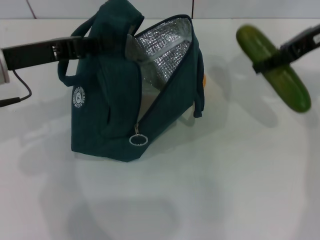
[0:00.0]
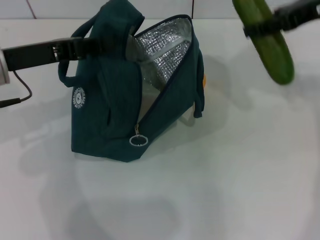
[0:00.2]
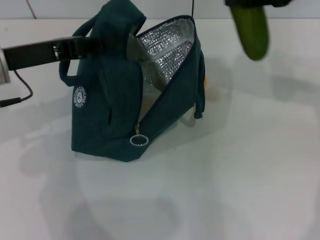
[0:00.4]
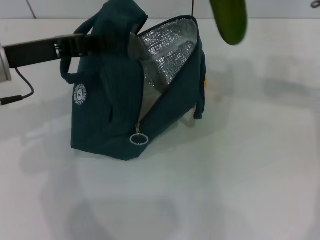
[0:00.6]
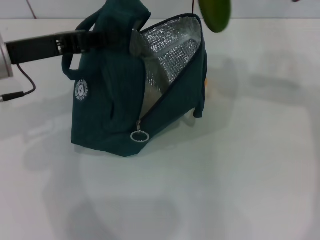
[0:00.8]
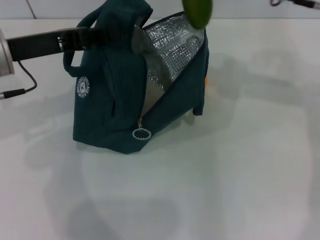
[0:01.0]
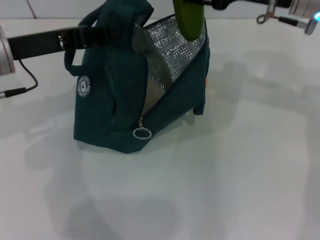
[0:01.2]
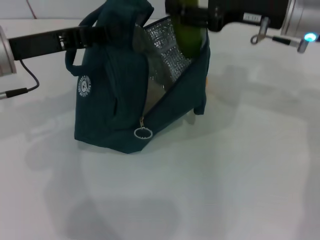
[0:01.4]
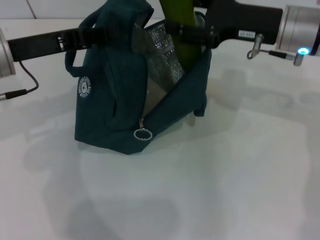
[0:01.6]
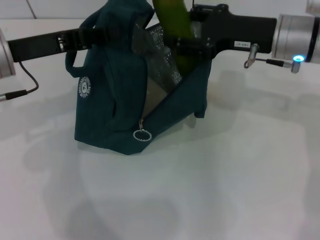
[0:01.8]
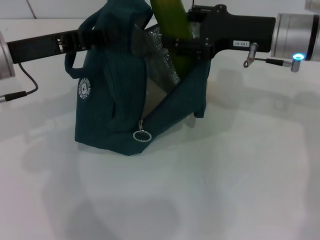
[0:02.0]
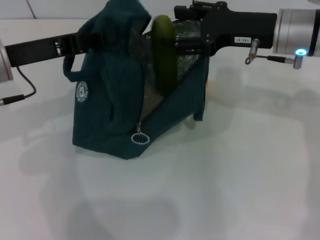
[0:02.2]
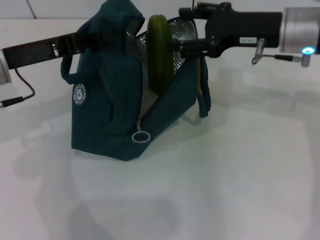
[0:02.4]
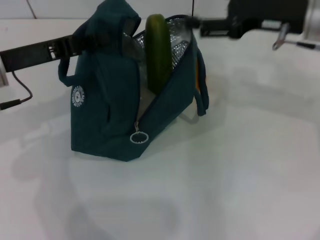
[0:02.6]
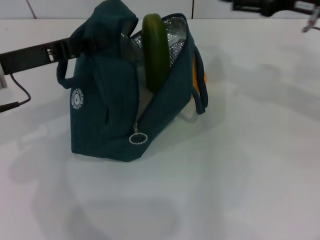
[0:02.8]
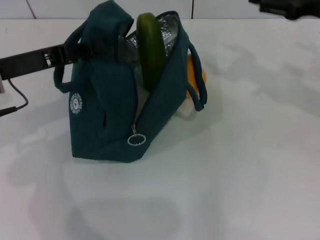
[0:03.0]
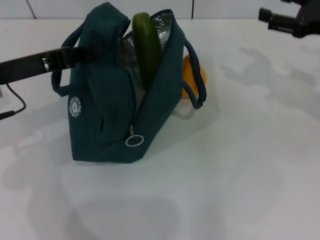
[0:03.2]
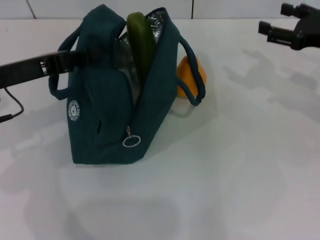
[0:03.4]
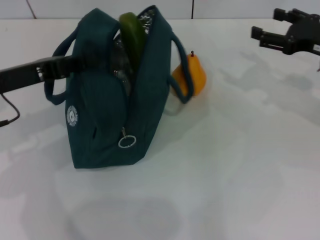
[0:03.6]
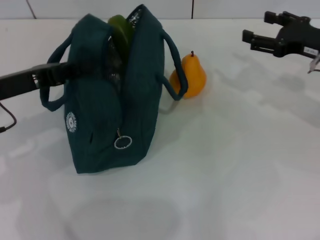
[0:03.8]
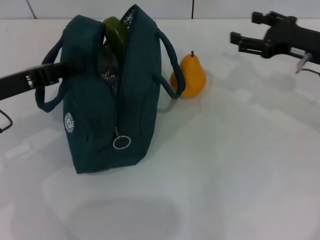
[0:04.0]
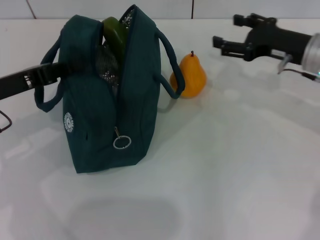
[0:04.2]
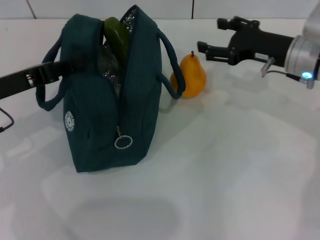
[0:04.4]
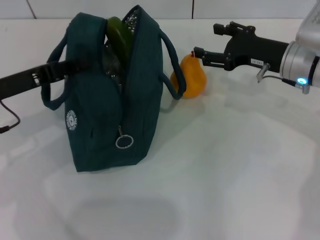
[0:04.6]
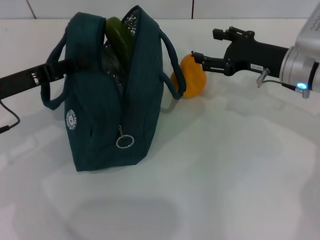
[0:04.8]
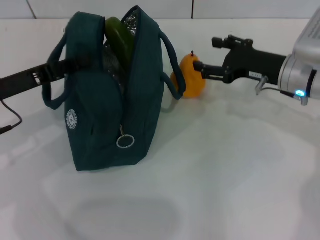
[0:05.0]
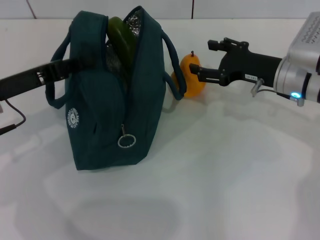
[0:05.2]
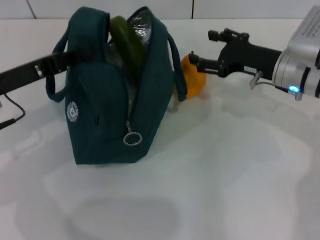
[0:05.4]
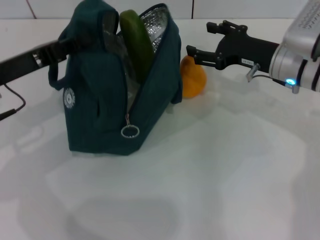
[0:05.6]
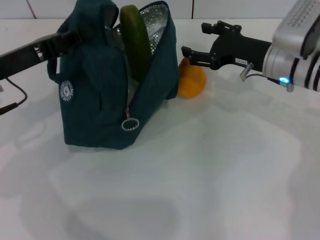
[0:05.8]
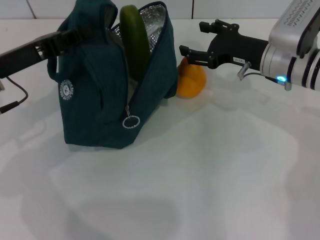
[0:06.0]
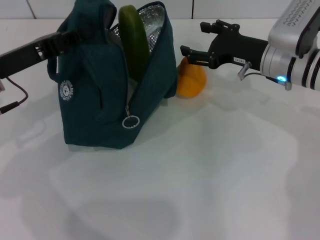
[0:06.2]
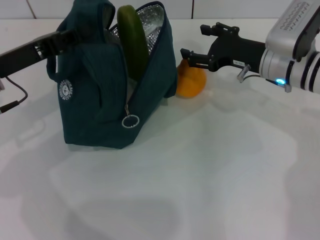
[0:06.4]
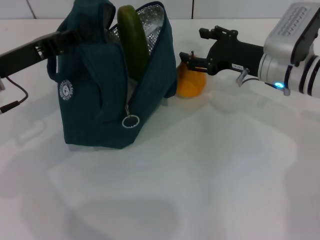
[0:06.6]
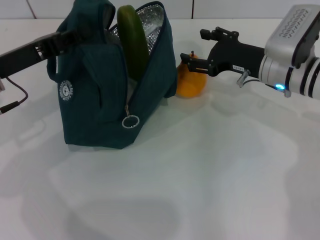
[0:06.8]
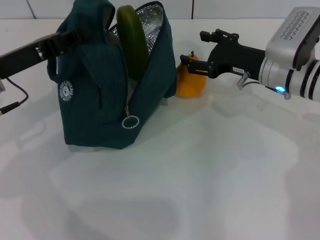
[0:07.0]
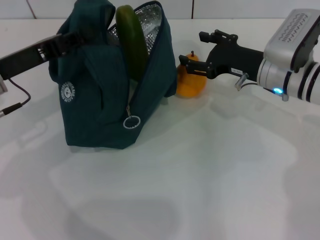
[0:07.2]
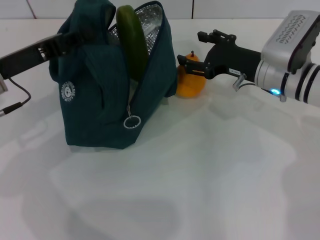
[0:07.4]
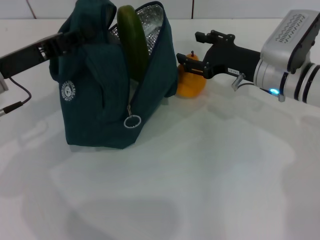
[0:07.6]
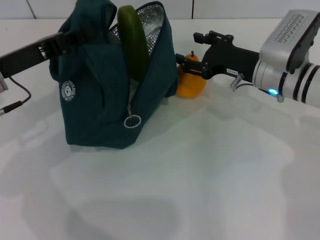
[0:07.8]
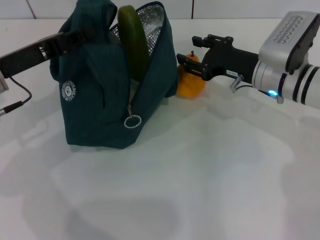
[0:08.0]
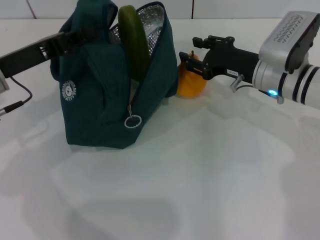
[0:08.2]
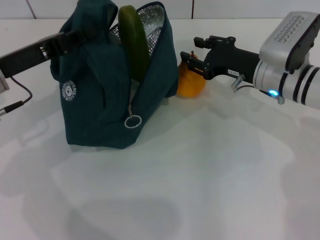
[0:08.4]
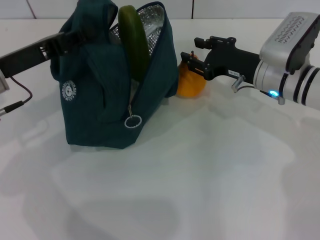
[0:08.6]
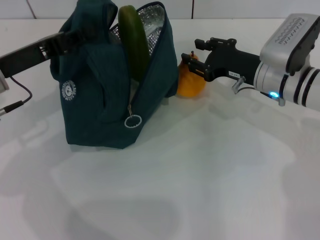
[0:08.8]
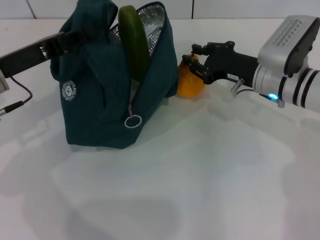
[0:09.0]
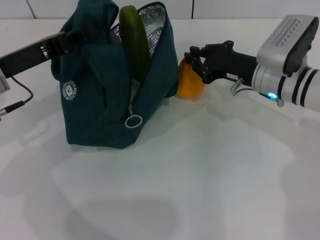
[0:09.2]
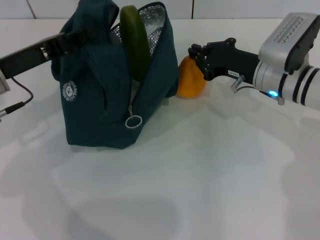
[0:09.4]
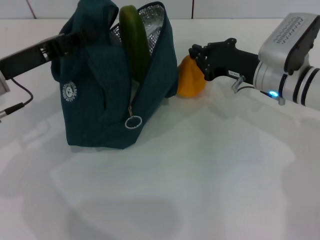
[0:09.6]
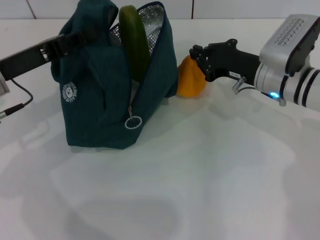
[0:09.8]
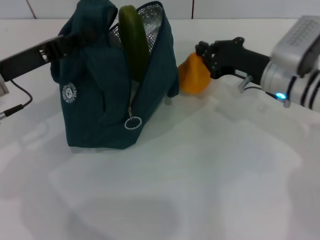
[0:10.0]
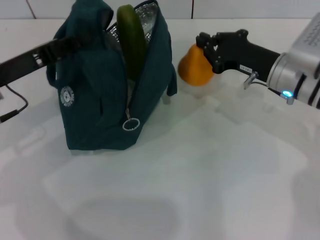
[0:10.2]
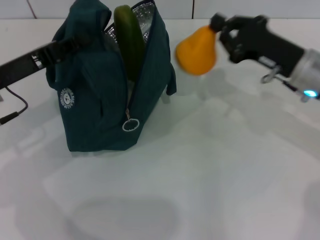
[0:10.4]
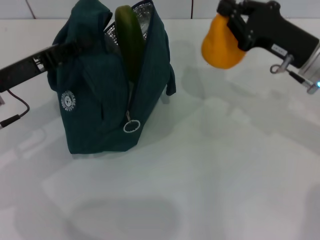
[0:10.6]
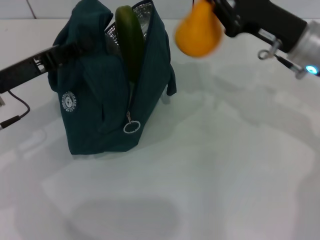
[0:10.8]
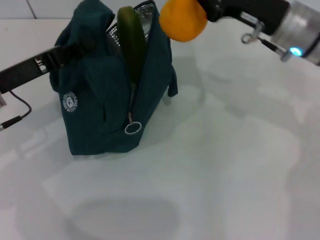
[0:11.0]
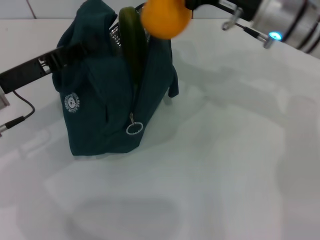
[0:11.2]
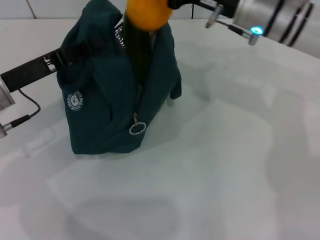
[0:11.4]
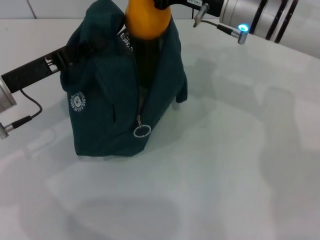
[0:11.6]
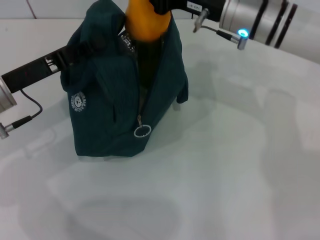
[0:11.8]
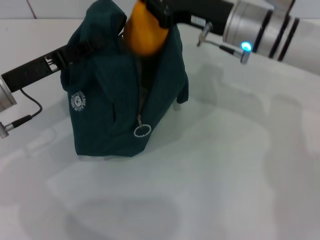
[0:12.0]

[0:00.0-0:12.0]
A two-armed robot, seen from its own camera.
Step, 0:00.0 to 0:02.4: Put the cucumber into the lunch bag with your right hand.
Step, 0:02.8 to 0:09.6: Grab the pear with your right hand.
0:00.0 to 0:01.6: The right gripper travels to the left and downward by some 10 cm.
0:01.6 to 0:03.0: The right gripper goes some 10 cm to the right.
0:03.0 to 0:04.4: The right gripper heads downward and to the left, covering about 10 cm.
0:06.0 to 0:07.6: The grippers move only a little.
0:07.6 to 0:09.0: The right gripper closes its fingers.
0:09.0 to 0:10.4: The right gripper shifts by about 5 cm, and closes its fingers.
0:10.4 to 0:12.0: The right gripper travels to the left and upward by approximately 10 cm.

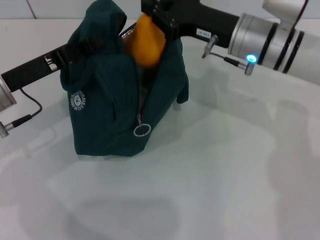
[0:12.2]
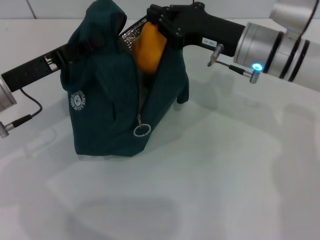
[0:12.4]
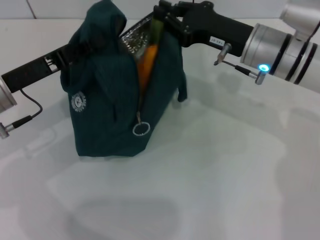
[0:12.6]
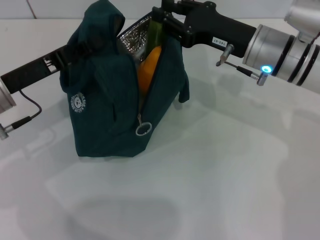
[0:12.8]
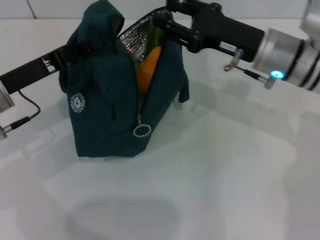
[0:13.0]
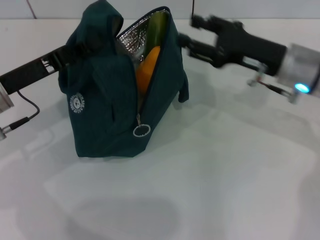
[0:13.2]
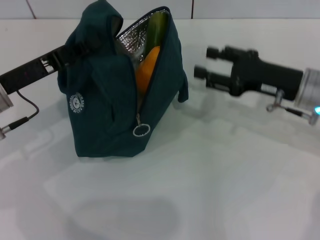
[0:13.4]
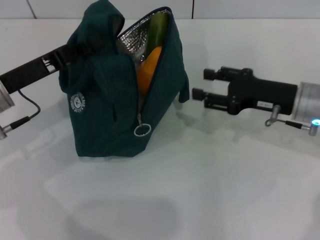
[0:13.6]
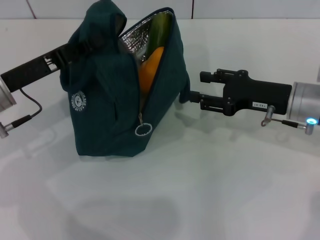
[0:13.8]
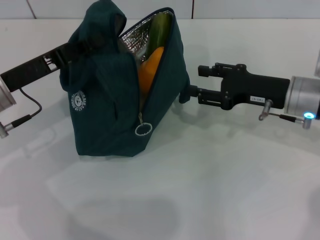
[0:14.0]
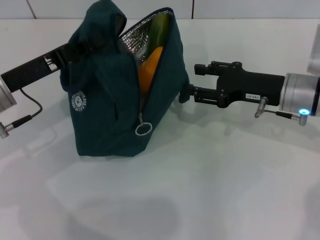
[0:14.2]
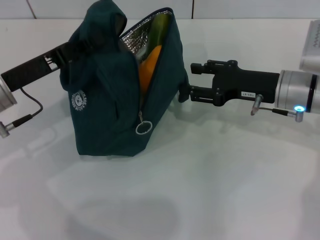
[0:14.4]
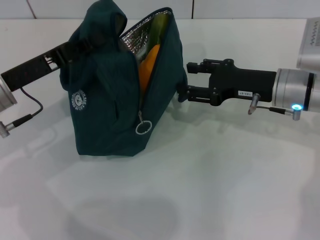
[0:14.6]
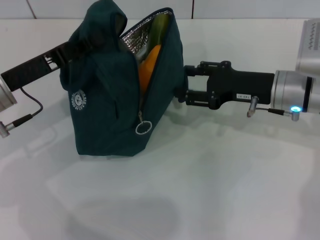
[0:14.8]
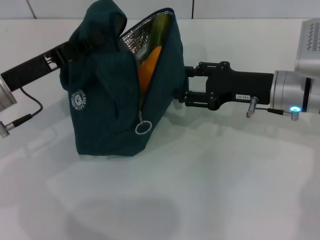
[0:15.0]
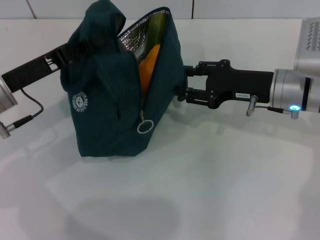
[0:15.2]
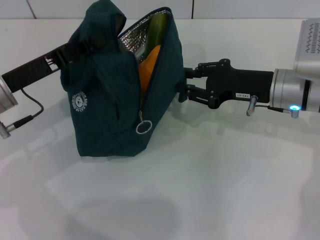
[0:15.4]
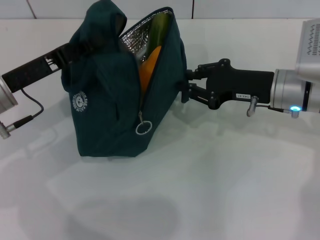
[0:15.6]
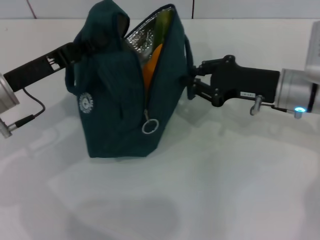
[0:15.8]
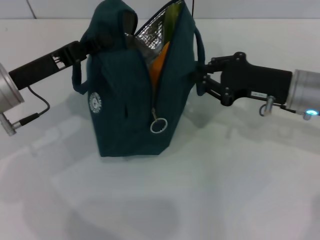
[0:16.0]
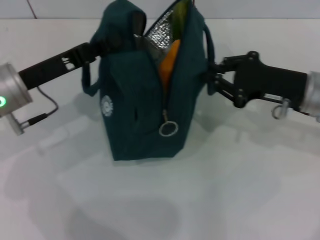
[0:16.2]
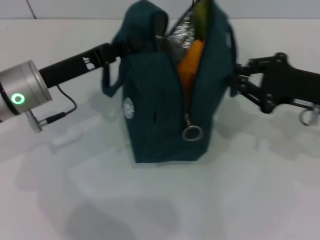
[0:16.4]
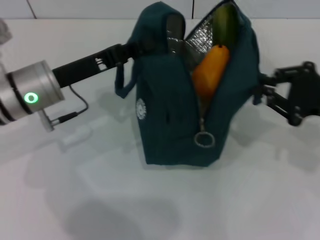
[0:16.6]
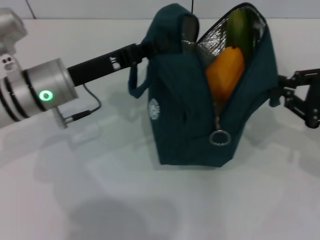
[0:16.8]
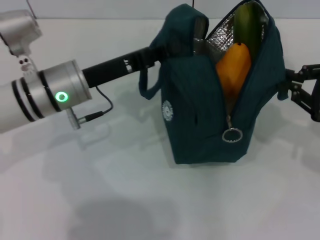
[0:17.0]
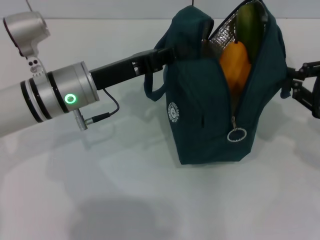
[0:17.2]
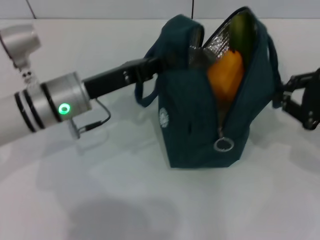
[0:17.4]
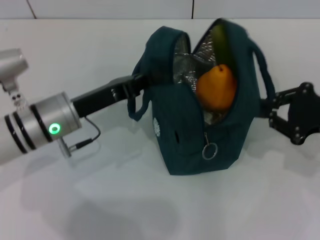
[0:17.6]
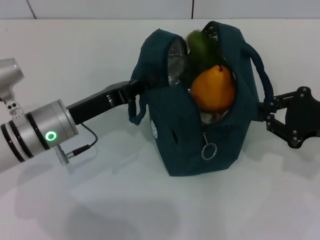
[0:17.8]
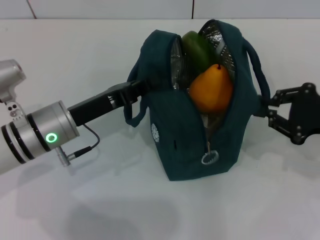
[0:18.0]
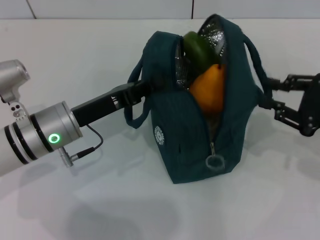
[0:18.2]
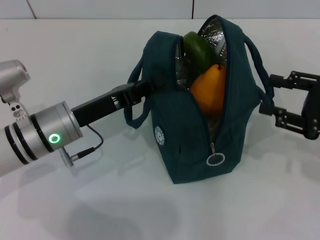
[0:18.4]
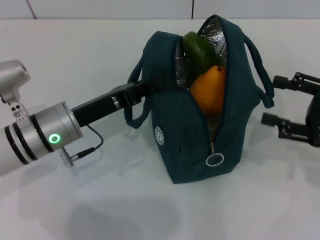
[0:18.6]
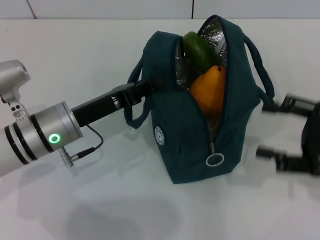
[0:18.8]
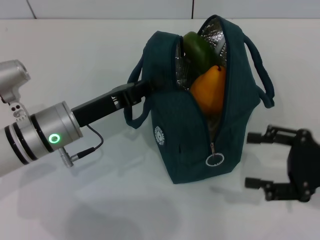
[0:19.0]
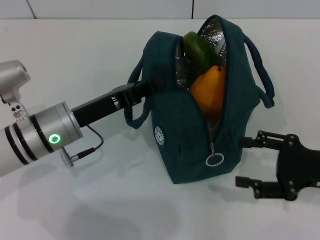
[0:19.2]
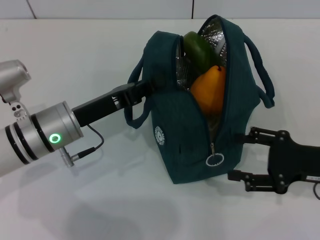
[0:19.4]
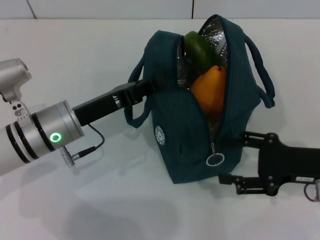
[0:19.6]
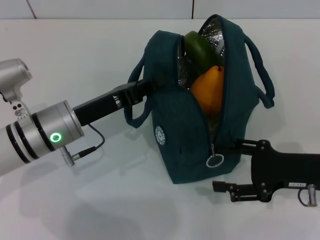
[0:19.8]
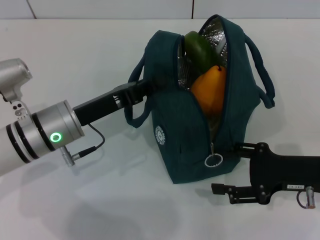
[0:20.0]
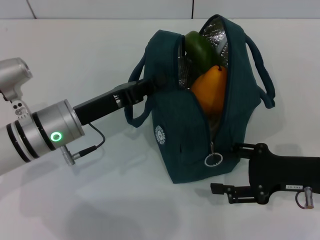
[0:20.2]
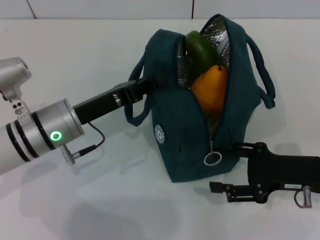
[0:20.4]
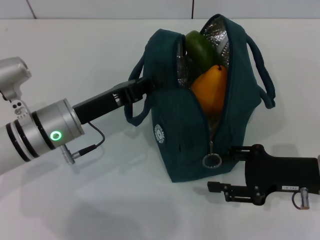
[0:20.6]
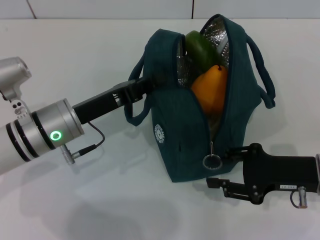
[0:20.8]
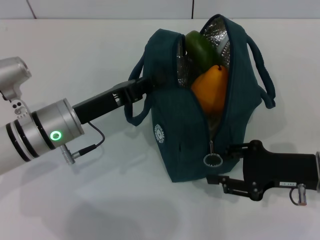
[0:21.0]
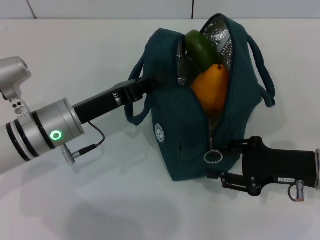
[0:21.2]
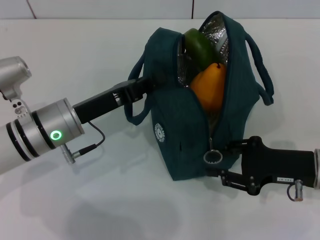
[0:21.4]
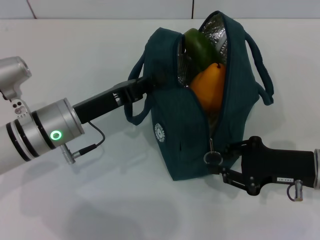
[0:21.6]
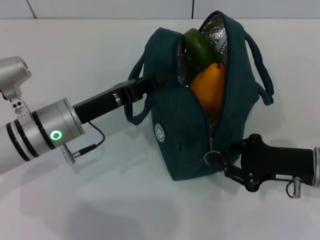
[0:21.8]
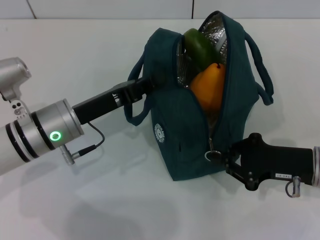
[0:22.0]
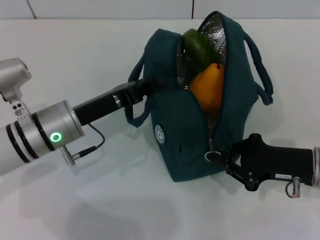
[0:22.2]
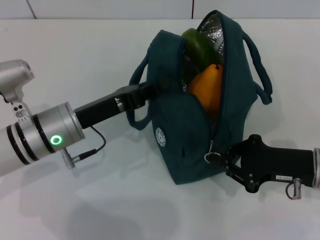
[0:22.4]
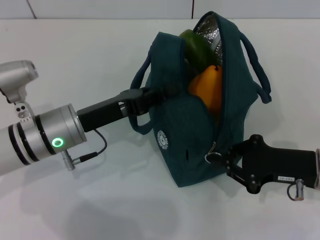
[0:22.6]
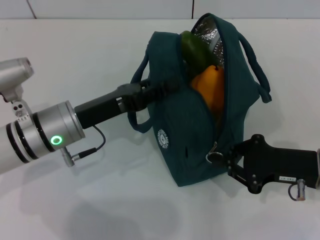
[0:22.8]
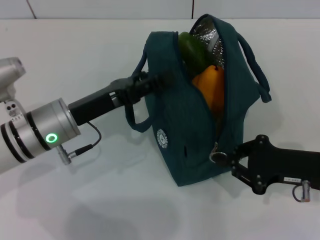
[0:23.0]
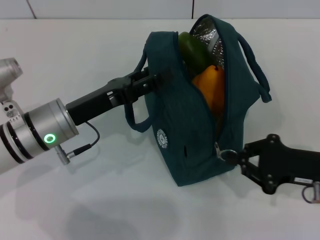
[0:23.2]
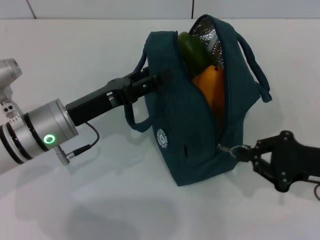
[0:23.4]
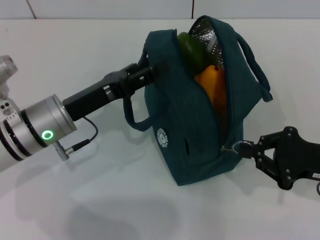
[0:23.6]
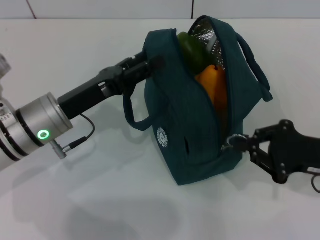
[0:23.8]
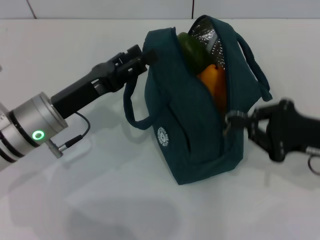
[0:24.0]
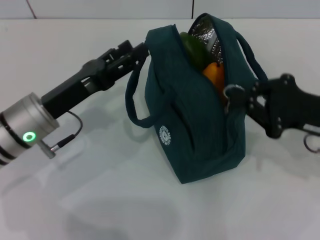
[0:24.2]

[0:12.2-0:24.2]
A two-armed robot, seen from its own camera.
Step, 0:12.8 to 0:18.2: Hold the lunch bag with your right hand.
Step, 0:18.6 to 0:24.0: Hold the lunch bag with your left hand.
0:12.2 to 0:13.8: The right gripper travels to the right and downward by roughly 10 cm, and opens up.
0:13.8 to 0:15.2: There are only small adjustments of the grippers.
0:15.2 to 0:16.6: The left gripper moves to the right, about 5 cm. Meanwhile the right gripper shifts some 15 cm to the right and backward, and closes its fingers.
0:16.6 to 0:18.2: The left gripper shifts by about 5 cm.
0:18.2 to 0:19.8: The right gripper travels downward and to the left by some 10 cm, and opens up.
0:19.8 to 0:21.2: The right gripper closes.
0:21.2 to 0:22.6: The right gripper closes its fingers.
0:22.6 to 0:24.2: The right gripper is displaced upward by some 5 cm; the left gripper opens up.
